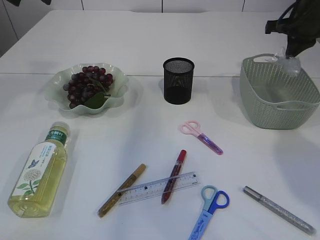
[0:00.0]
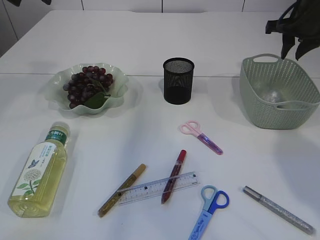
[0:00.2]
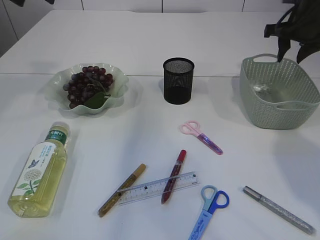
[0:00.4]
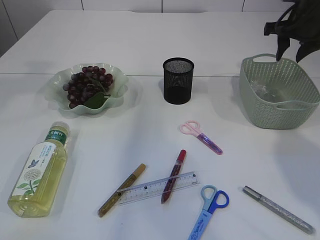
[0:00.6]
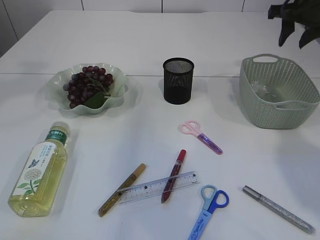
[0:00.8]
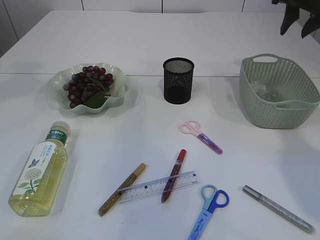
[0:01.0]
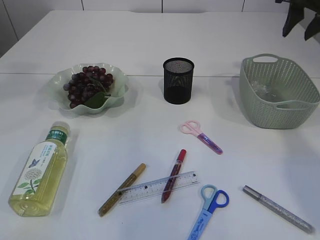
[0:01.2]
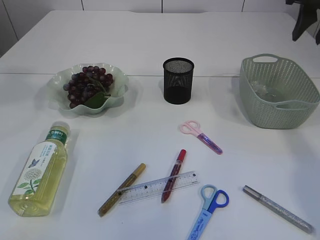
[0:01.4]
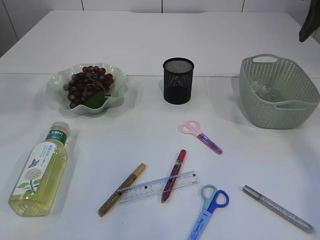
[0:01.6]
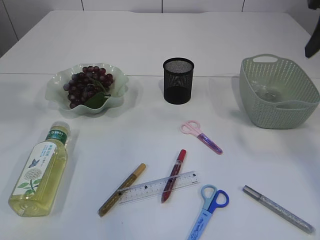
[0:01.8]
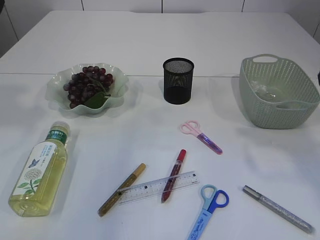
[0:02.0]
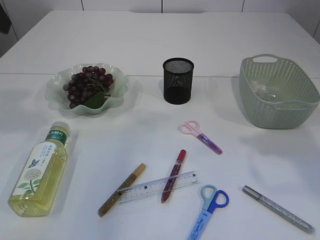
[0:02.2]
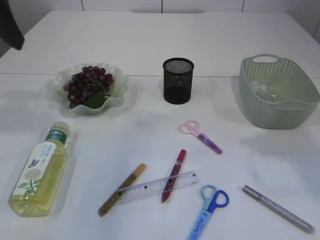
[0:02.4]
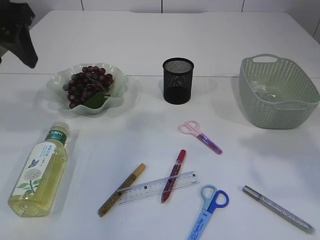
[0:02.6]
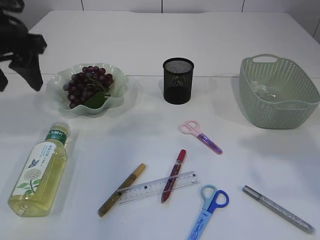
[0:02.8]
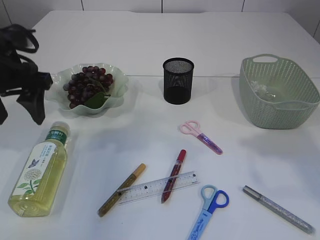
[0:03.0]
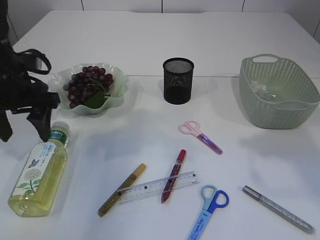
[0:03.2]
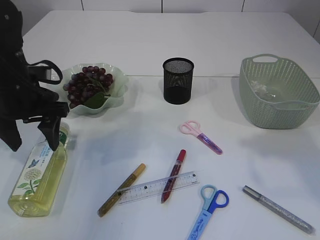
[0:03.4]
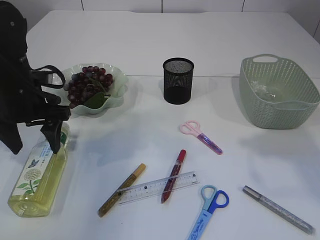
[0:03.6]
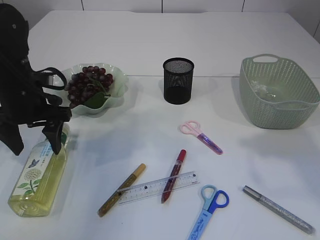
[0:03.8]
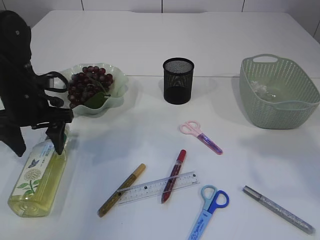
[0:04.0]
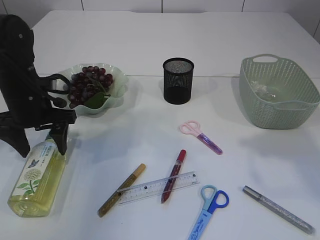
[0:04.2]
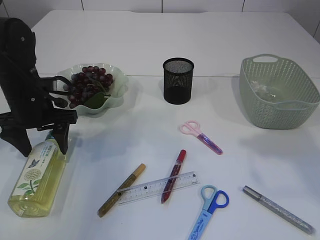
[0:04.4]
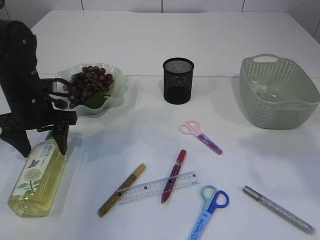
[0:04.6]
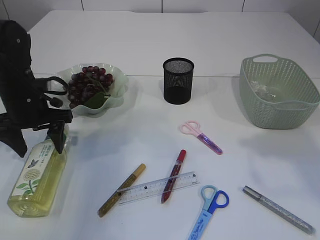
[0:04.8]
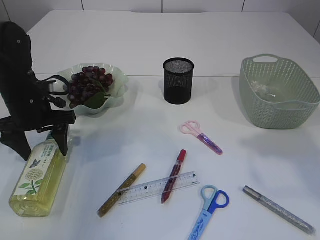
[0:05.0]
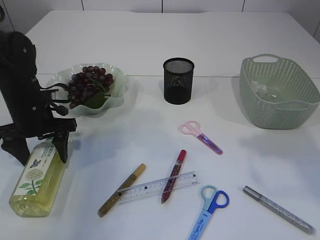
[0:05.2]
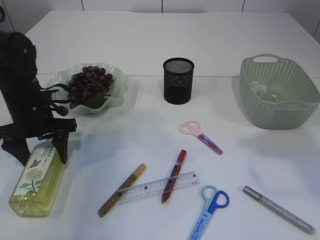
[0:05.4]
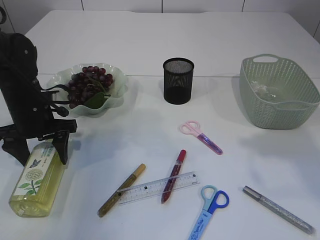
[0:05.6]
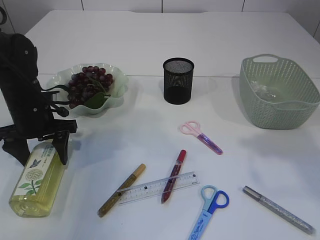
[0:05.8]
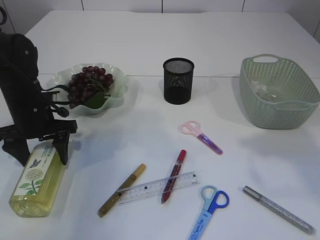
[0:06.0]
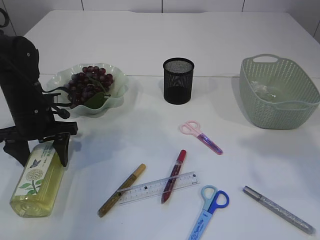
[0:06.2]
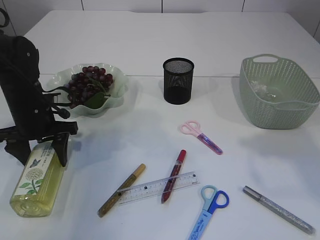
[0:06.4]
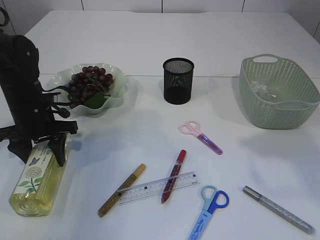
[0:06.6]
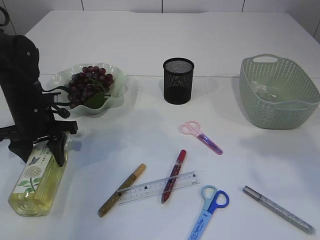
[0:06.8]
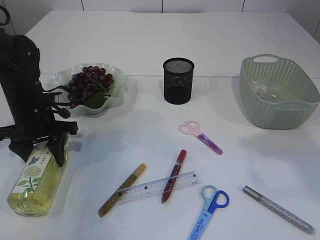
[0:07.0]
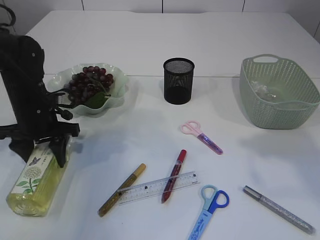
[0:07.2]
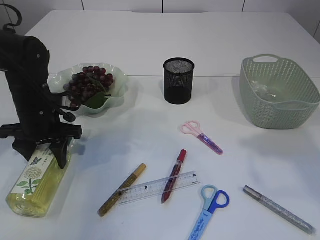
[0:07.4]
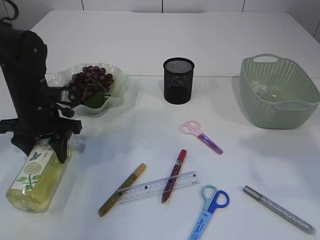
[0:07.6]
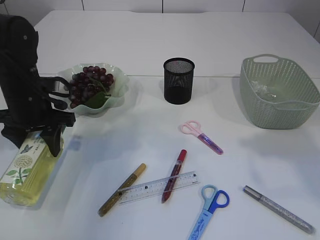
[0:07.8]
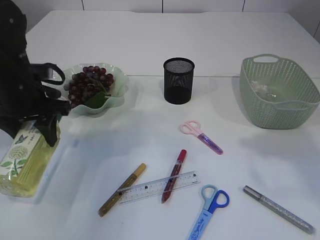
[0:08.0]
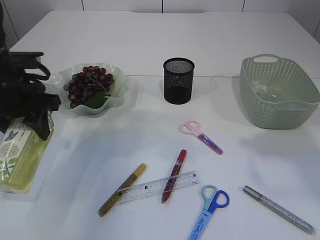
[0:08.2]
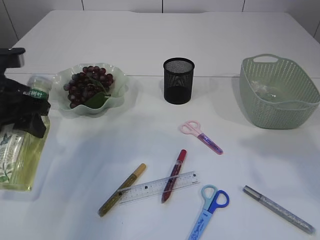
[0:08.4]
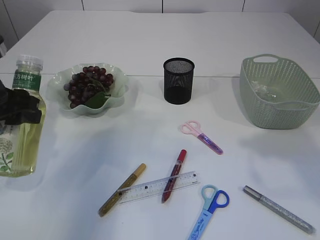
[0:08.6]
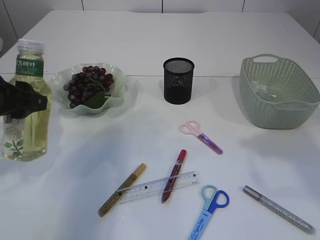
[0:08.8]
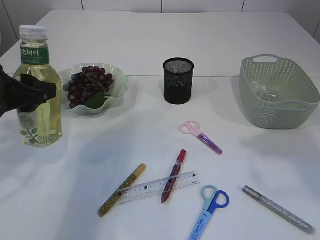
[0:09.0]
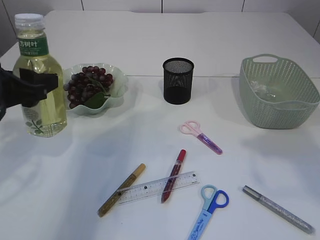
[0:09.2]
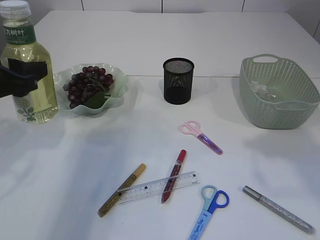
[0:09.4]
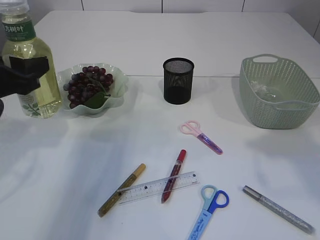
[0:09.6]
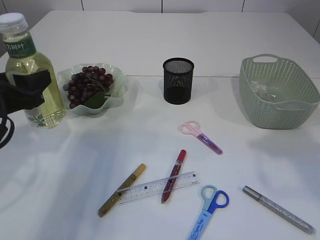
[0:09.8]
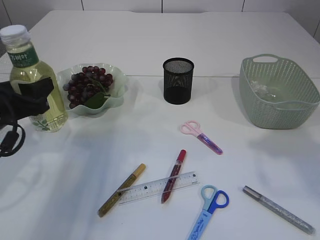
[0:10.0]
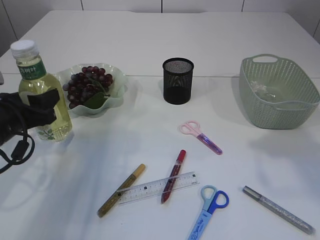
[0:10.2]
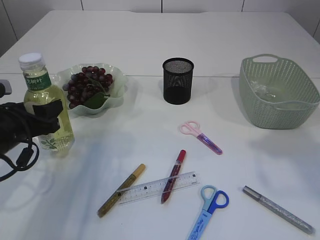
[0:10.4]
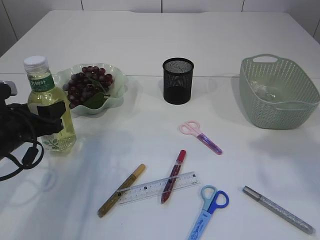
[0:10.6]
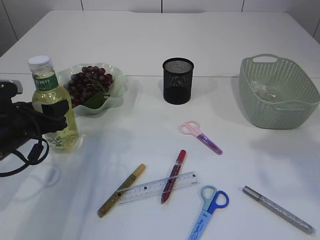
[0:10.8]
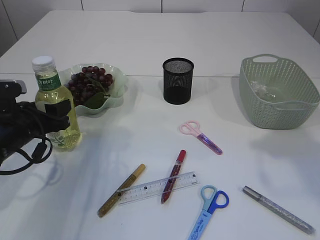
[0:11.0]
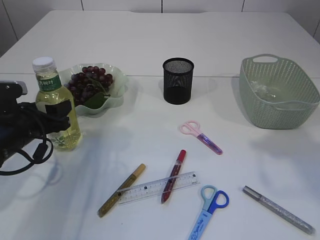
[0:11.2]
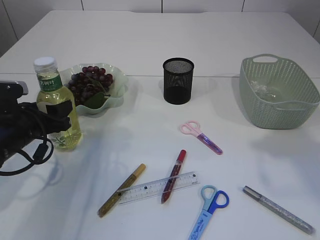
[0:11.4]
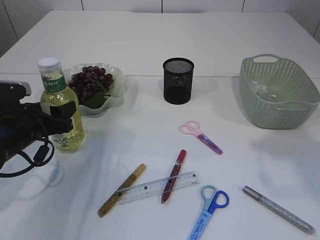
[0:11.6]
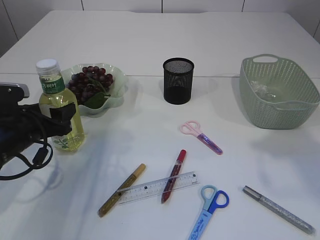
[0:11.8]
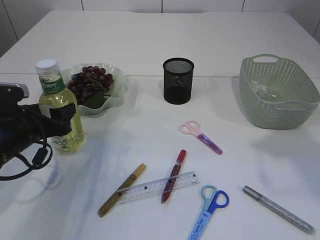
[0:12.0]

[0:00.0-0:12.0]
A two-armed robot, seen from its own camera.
Step, 0:00.8 to 0:07.8: Pick up the bottle with the left arm.
0:00.0 to 0:01.6: Both grippers move backward and upward, roughly 15 cm. The right gripper opens up.
0:01.6 to 0:03.0: The right gripper moves backward, about 10 cm. The left gripper is displaced downward by about 20 cm.
0:03.0 to 0:04.4: The left gripper shifts about 10 cm downward.
0:04.4 to 0:06.0: The grippers stay close to where they were, moving slightly.
0:06.0 to 0:07.6: The left gripper closes up.
0:07.6 to 0:09.0: The left gripper moves backward and upward, about 15 cm.
0:09.0 to 0:10.4: The left gripper travels downward by about 10 cm.
0:10.4 to 0:12.0: There are only small adjustments of the grippers.

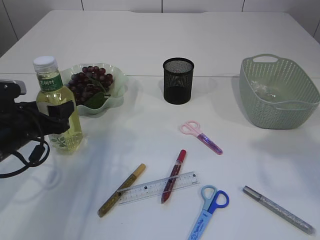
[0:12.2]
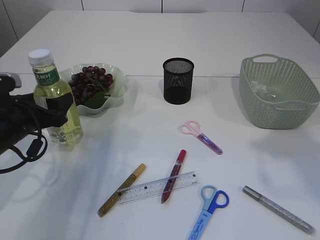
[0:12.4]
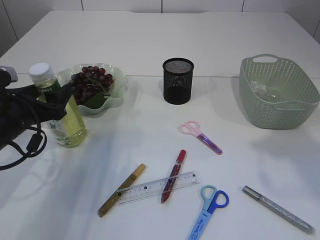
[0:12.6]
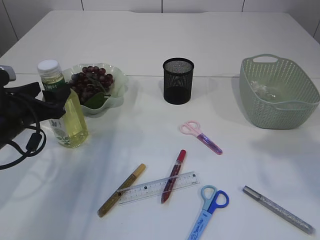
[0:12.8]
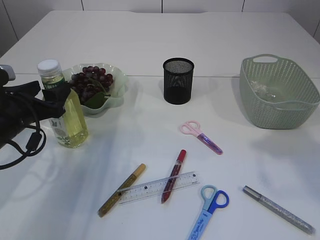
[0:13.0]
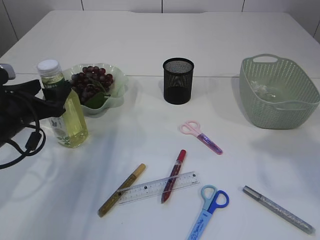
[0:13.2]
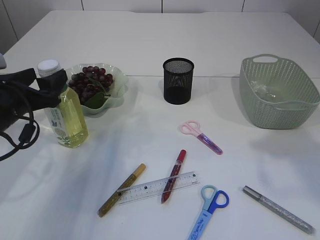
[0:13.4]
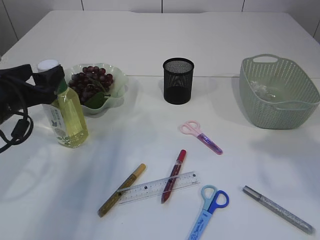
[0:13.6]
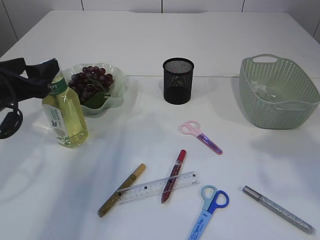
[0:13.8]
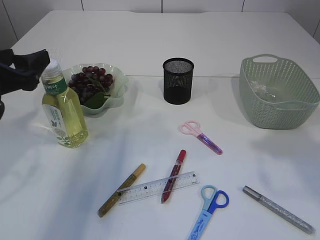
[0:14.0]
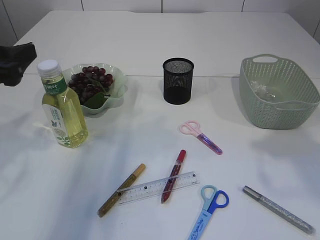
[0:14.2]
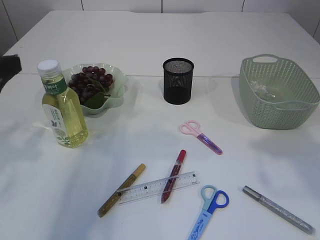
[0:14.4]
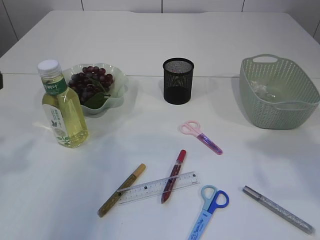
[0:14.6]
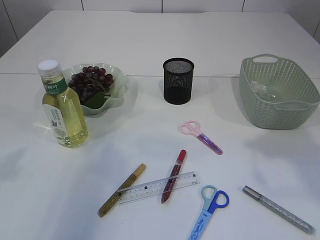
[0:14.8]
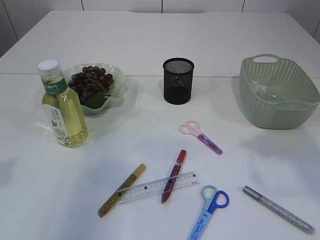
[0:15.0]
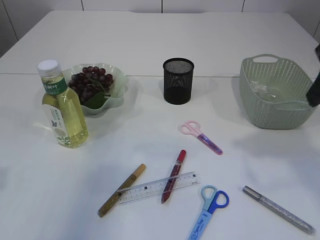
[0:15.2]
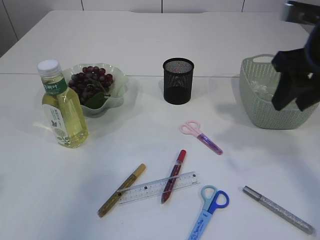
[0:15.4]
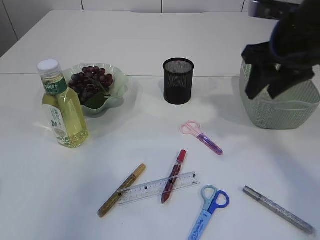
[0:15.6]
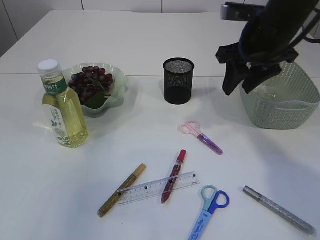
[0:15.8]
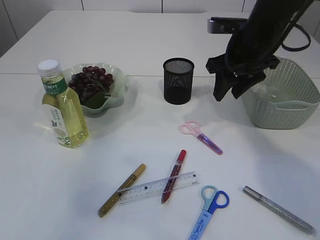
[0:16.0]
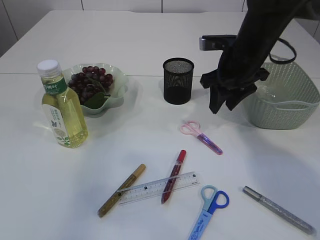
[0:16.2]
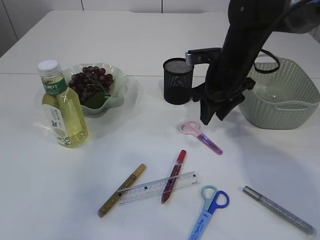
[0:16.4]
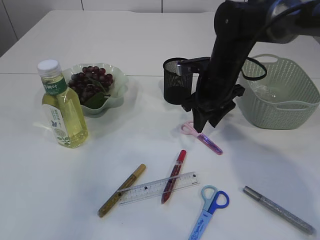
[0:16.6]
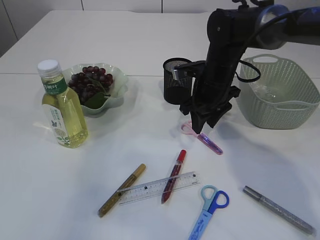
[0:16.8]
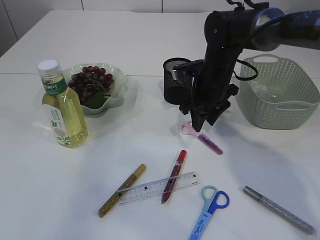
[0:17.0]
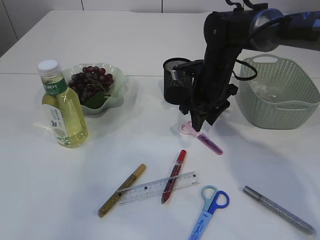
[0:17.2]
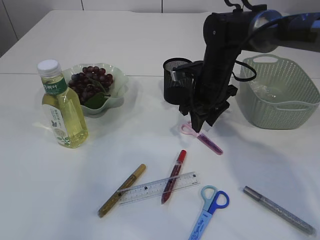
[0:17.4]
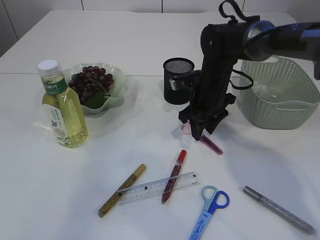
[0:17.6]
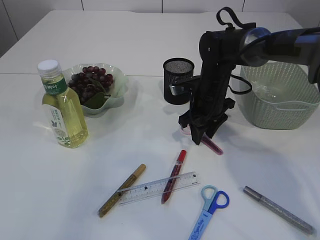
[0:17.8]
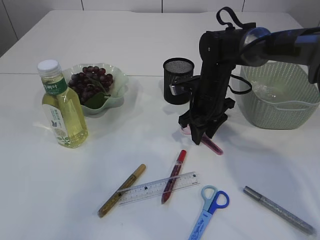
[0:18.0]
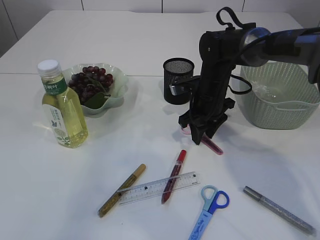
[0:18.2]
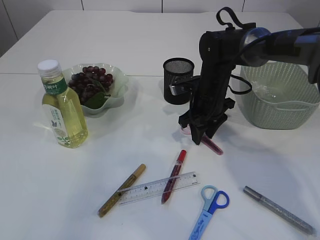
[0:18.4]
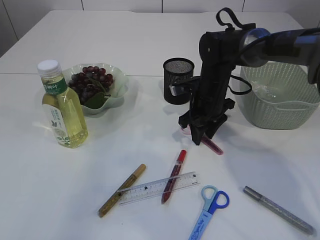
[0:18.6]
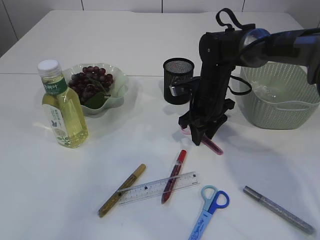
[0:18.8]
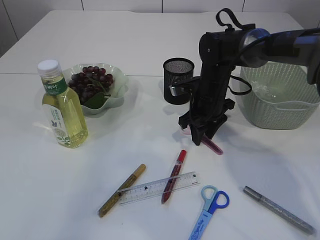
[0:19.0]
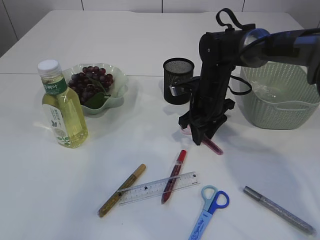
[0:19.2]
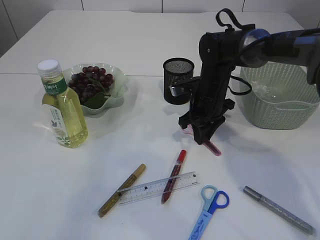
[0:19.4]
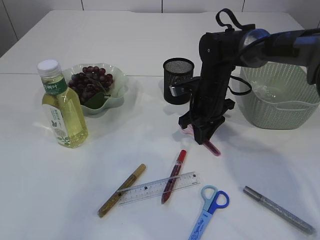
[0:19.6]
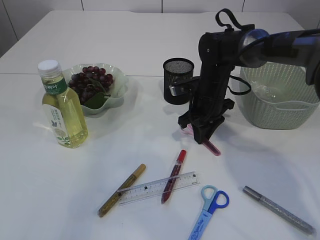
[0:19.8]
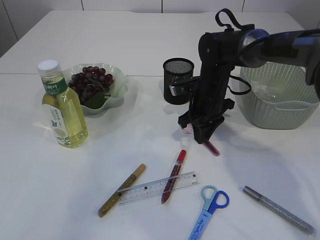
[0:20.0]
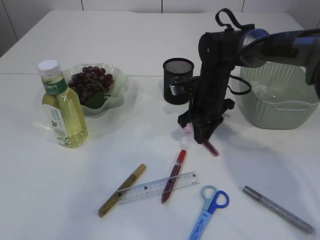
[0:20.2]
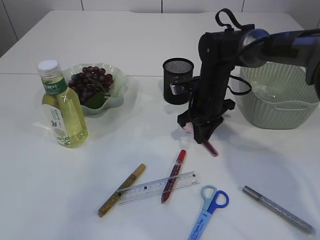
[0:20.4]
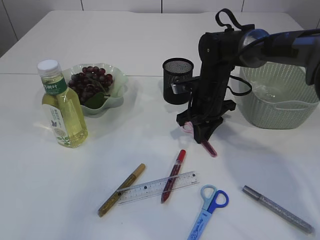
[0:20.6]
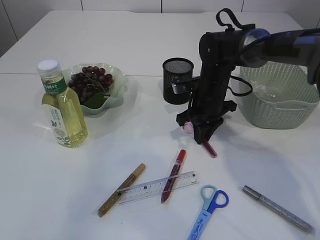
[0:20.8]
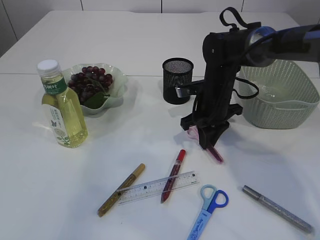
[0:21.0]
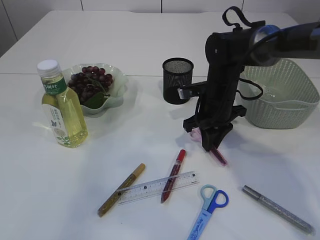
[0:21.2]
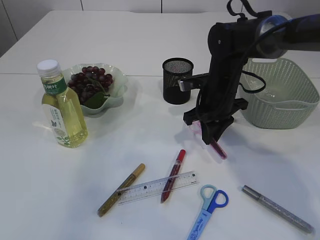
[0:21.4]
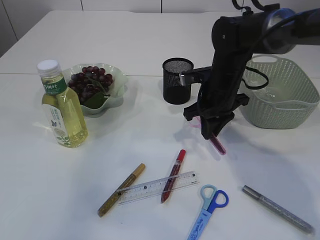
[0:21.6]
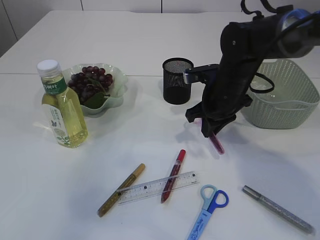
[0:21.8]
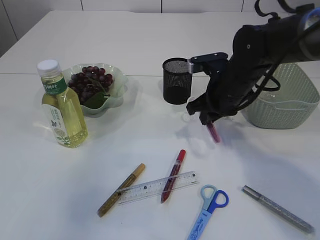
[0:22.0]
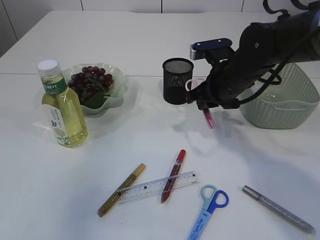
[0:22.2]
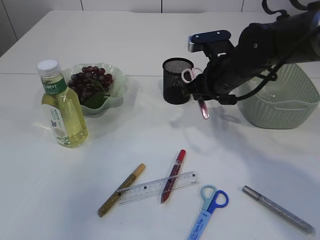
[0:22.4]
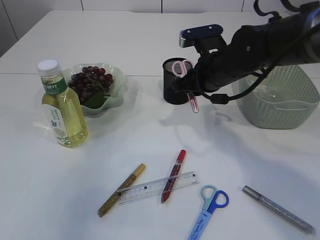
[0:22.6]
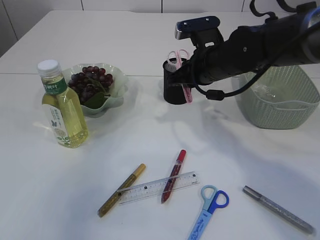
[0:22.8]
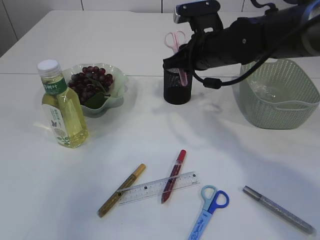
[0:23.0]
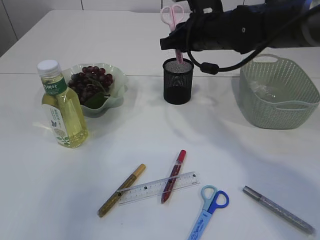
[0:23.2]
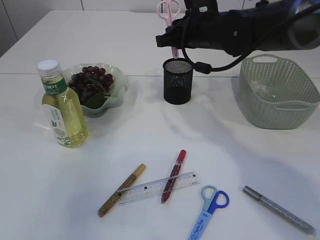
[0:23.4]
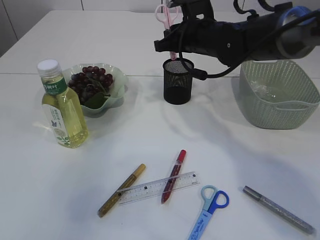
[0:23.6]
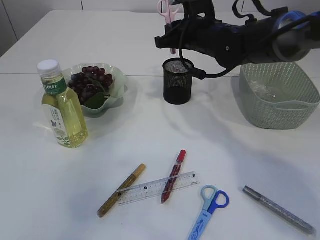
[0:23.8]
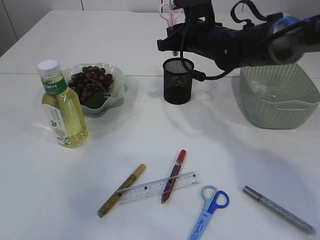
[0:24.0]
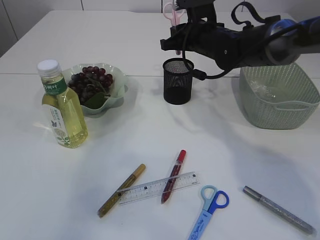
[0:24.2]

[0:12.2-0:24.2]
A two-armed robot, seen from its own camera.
Step, 0:14.2 to 0:21.6: pick up the pink scissors.
0:12.2 to 0:13.8: The left gripper moves upward, some 10 cm.
0:13.8 to 0:15.2: The left gripper moves upward and backward, roughly 20 cm.
0:15.2 to 0:16.6: The right gripper goes about 25 cm forward, downward and to the left.
0:16.6 to 0:18.2: The right gripper travels downward by some 5 cm.
0:18.2 to 0:19.8: Both grippers stay put.
0:19.8 to 0:21.2: The grippers make only small movements.
0:21.2 to 0:22.6: The right gripper goes approximately 5 cm upward.
0:22.6 to 0:24.2: The right gripper heads forward, covering approximately 10 cm.
